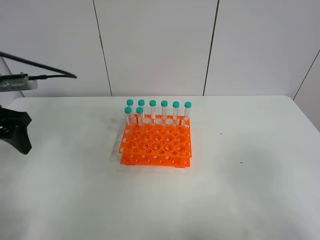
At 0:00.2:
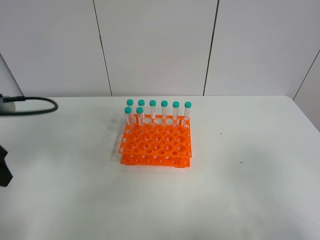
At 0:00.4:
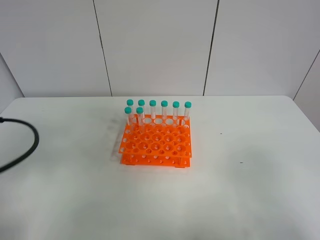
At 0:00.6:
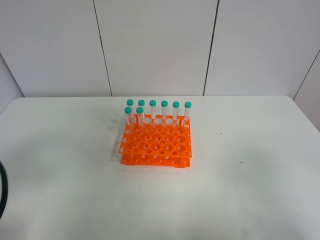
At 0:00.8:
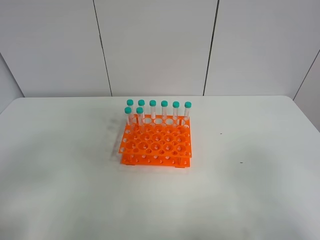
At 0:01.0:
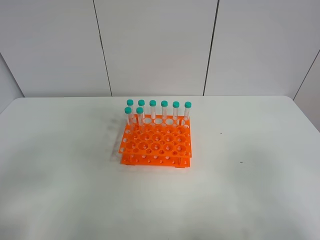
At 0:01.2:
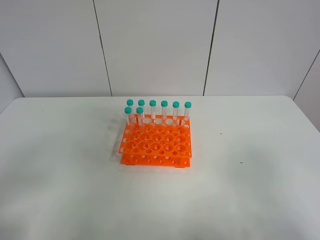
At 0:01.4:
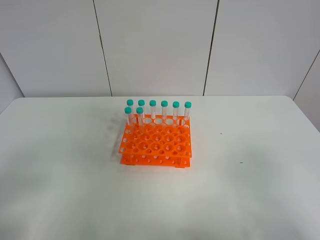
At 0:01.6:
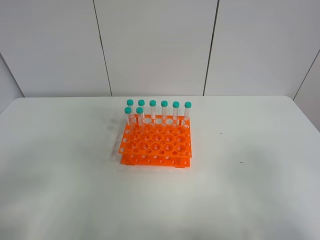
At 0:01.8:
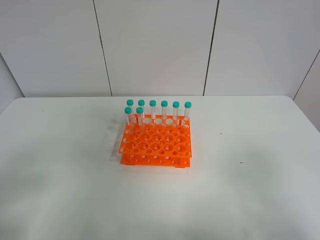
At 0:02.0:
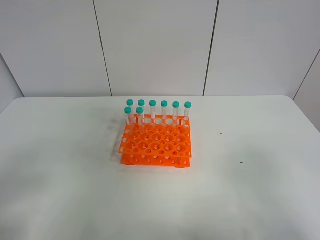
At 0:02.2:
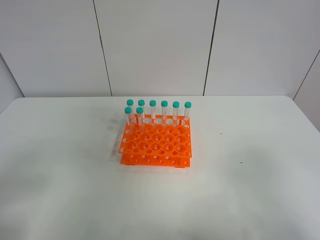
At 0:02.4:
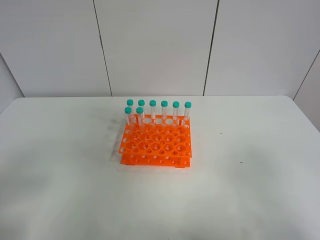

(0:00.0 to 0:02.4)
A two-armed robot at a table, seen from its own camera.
Task of the whole recording: Put the test tube on the table back onto the test tube rack.
0:00.0 - 0:01.2: The left gripper shifts roughly 25 cm backward.
